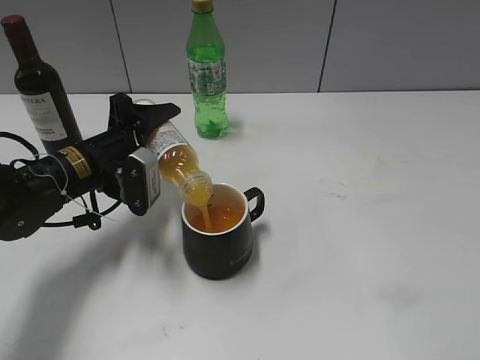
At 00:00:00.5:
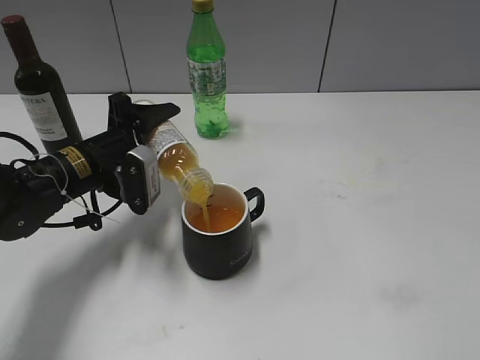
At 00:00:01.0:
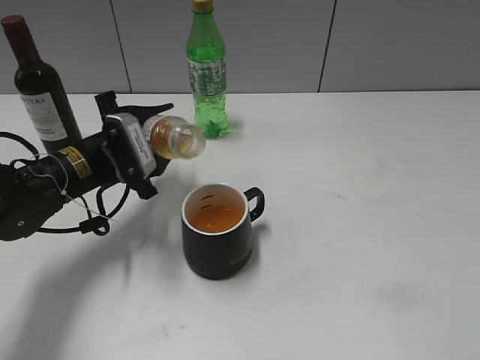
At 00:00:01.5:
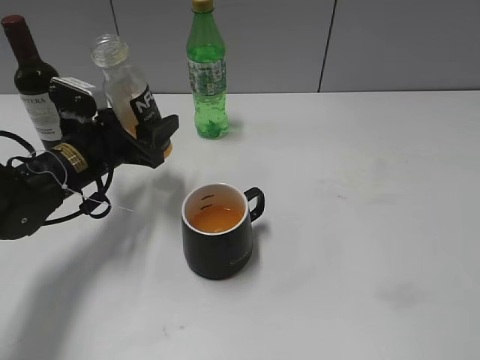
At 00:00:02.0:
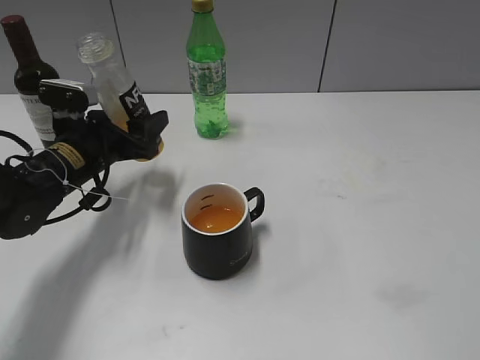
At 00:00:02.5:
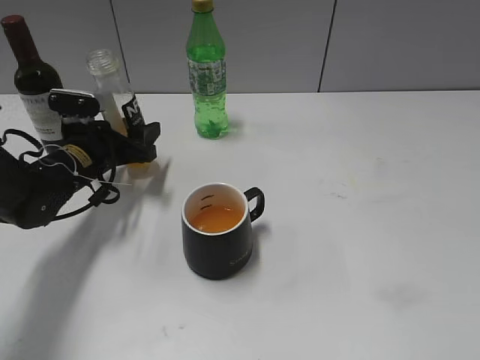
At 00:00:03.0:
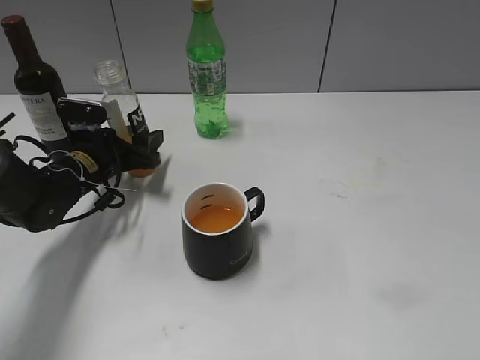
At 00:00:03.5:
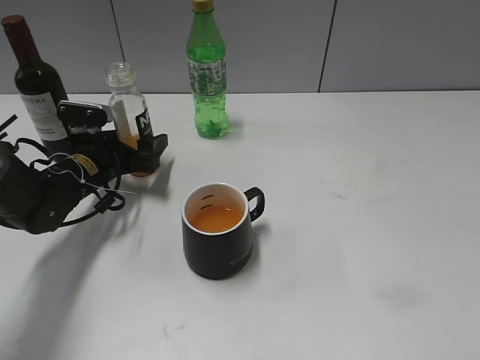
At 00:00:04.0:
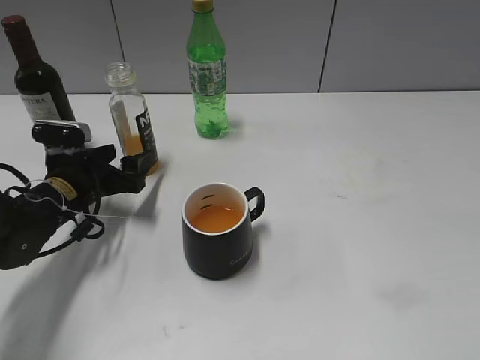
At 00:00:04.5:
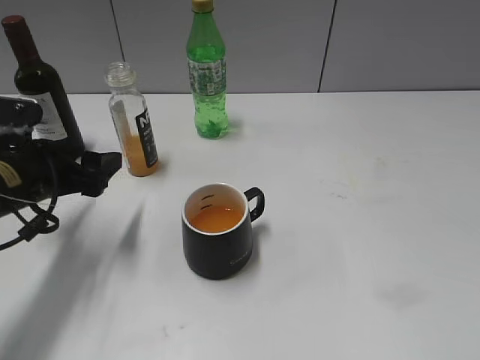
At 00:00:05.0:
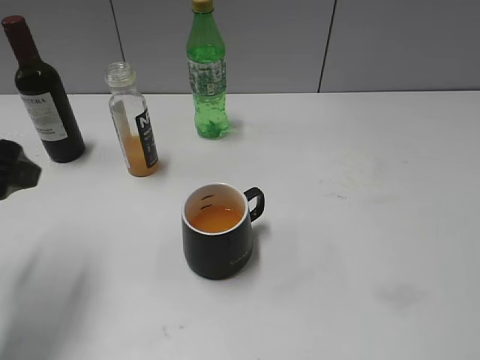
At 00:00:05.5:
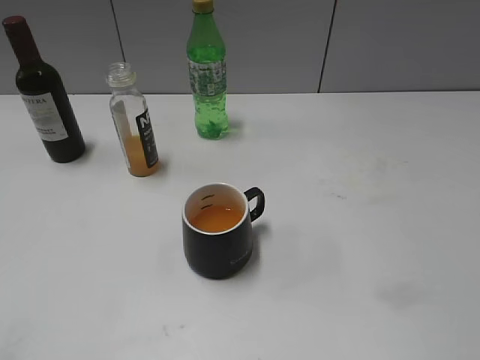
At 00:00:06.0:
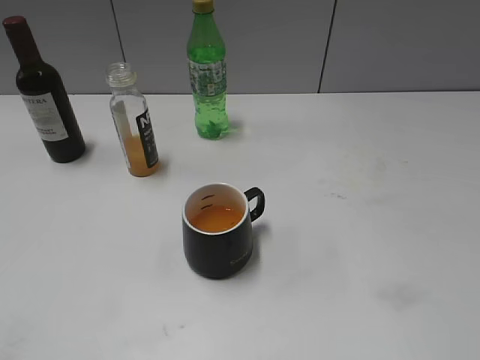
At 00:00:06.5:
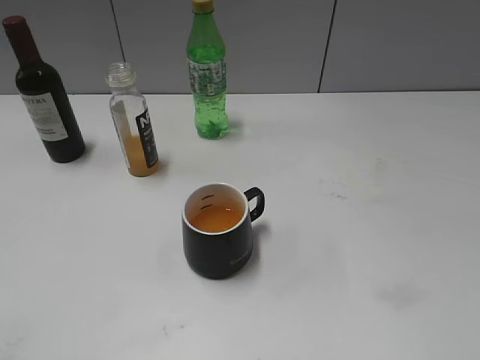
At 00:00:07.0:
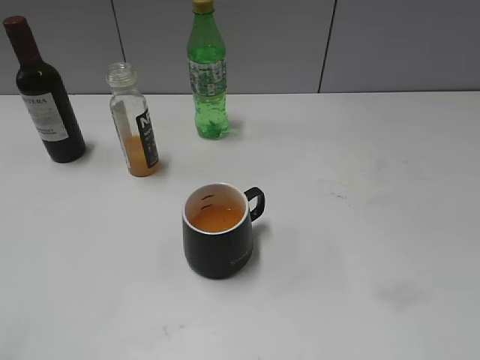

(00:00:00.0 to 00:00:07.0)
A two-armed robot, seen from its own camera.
Step, 00:00:01.0 - 00:00:03.0: Place the orange juice bottle on the table with left gripper.
00:00:02.0 - 00:00:03.5: The left gripper heads downward, covering some 5 cm, and opens.
00:00:03.5 - 00:00:05.0: The left gripper goes about 25 cm upward and backward.
00:00:05.0 - 00:00:07.0: The left gripper shifts approximately 20 cm backward.

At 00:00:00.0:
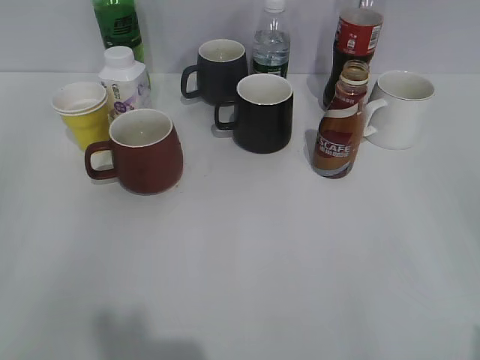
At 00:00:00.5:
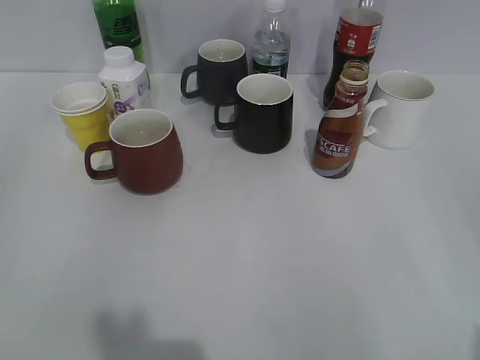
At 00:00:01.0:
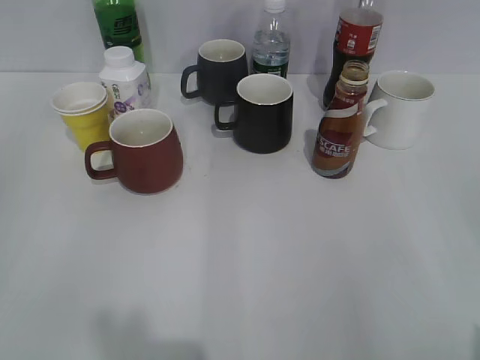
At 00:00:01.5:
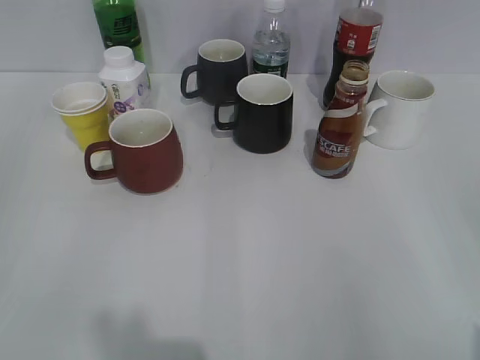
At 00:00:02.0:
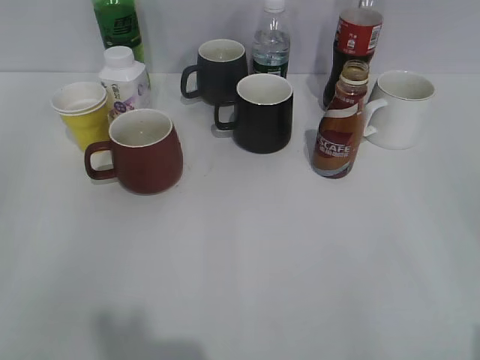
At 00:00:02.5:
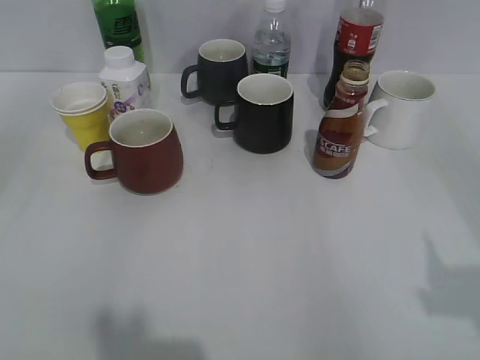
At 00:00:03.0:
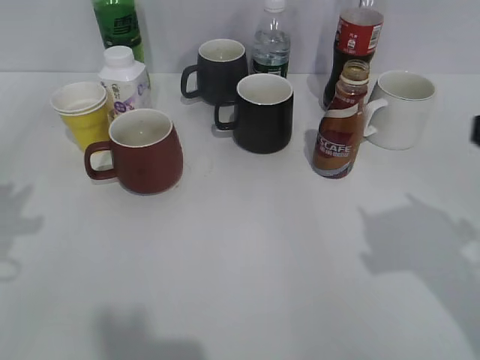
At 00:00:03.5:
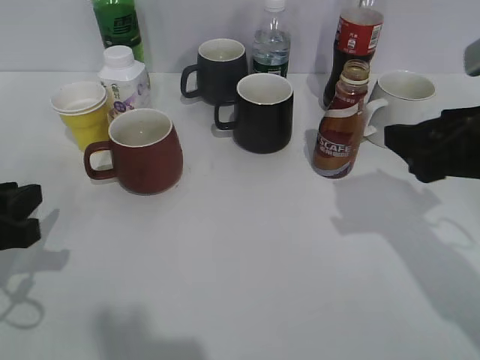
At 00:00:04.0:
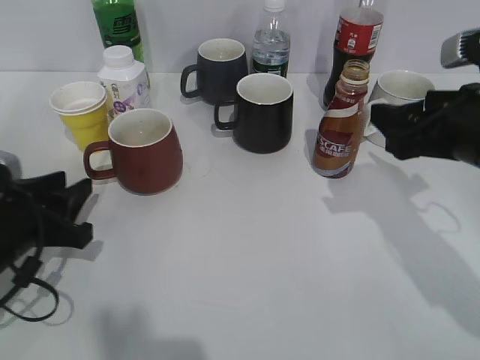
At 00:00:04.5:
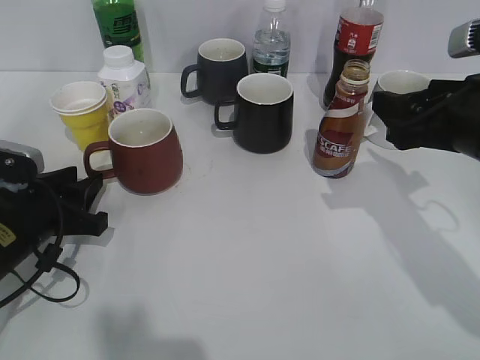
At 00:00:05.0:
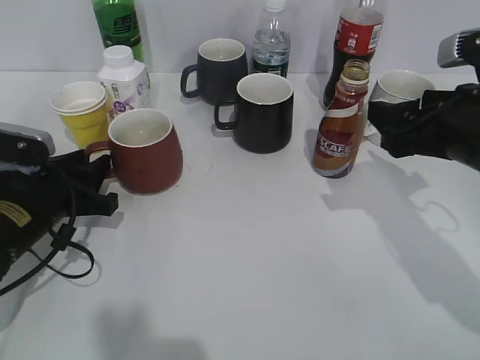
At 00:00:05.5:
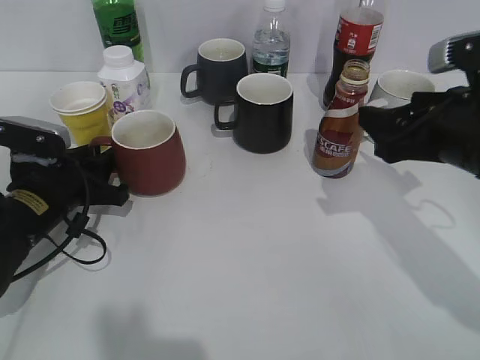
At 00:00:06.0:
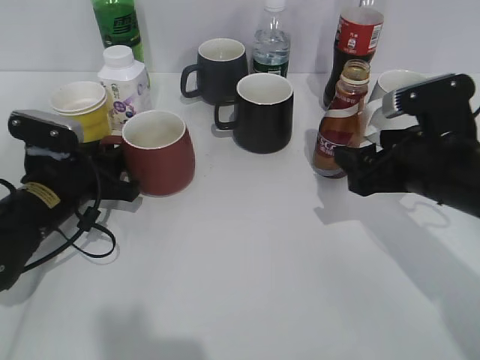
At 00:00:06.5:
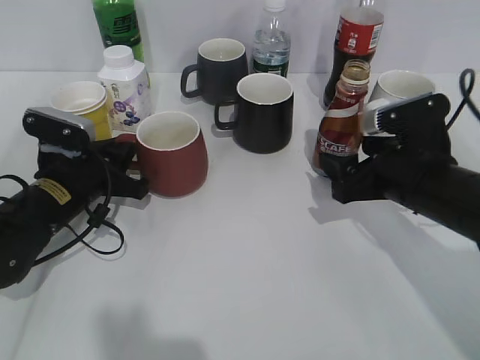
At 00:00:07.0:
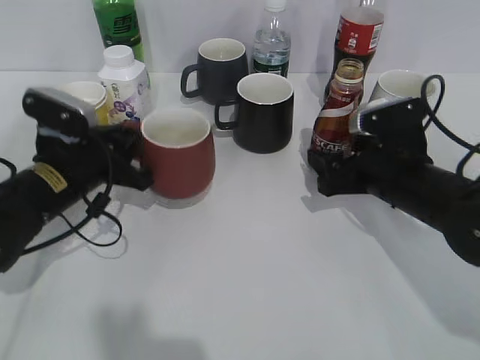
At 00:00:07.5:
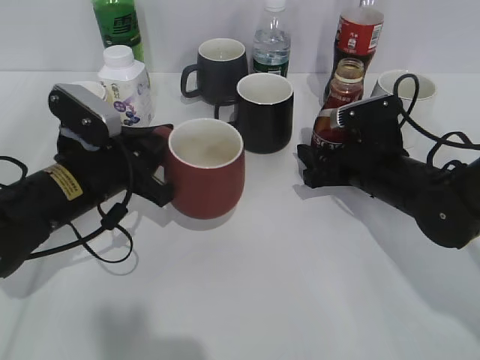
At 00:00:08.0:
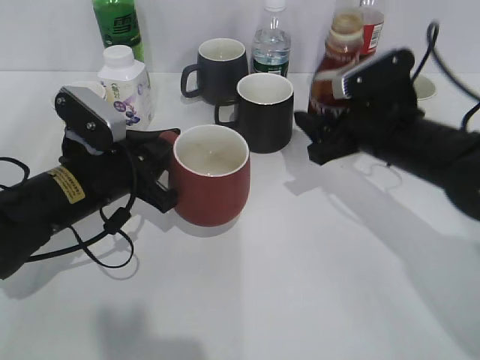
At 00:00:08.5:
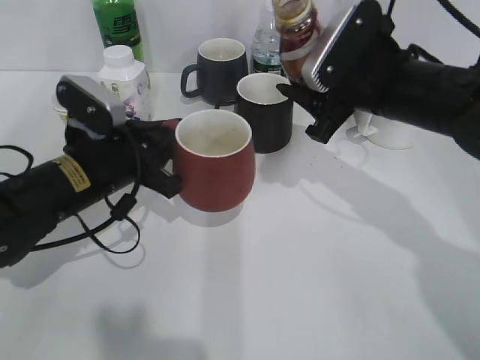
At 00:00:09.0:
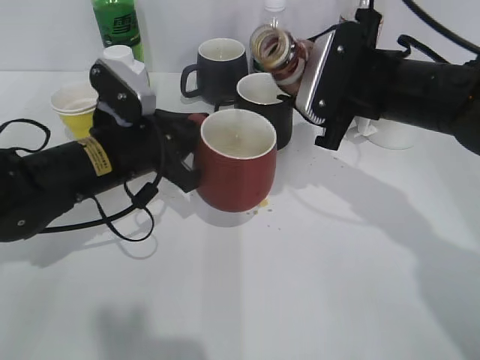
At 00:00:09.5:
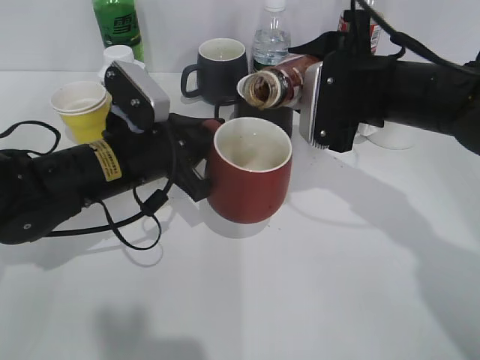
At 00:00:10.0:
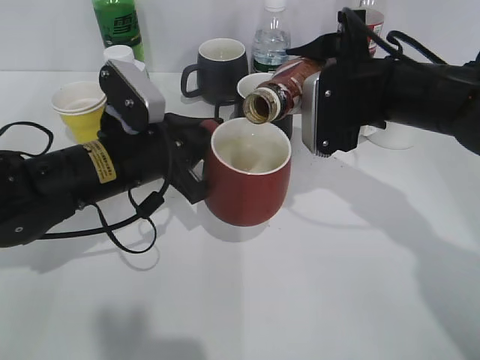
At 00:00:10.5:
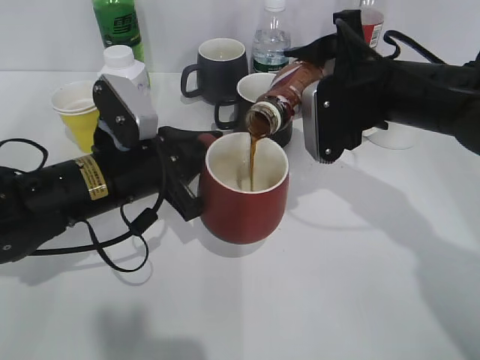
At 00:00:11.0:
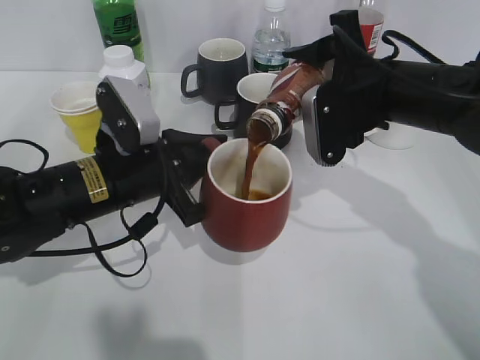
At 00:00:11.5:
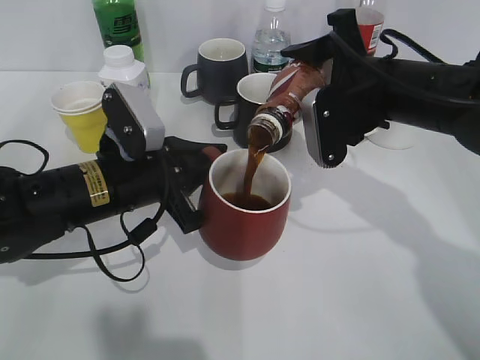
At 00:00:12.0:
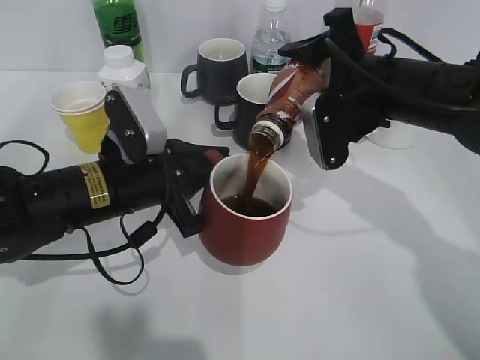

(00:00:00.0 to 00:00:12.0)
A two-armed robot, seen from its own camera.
Step, 00:00:02.5 - 00:00:06.0: Grasp the red cup with left gripper.
Step, 00:00:06.5 - 00:00:07.5: Grasp the bottle with coffee with right gripper.
00:00:02.0 - 00:00:04.0: The left gripper moves forward and downward, roughly 25 cm, while the right gripper is displaced forward by some 25 cm.
00:00:04.0 - 00:00:06.0: The right gripper heads downward, covering about 5 cm. The left gripper travels forward by about 10 cm.
00:00:06.0 - 00:00:08.0: The right gripper travels forward by some 5 cm, and closes, while the left gripper moves approximately 5 cm, and closes up.
00:00:08.0 - 00:00:10.0: The right gripper heads upward, covering roughly 5 cm.

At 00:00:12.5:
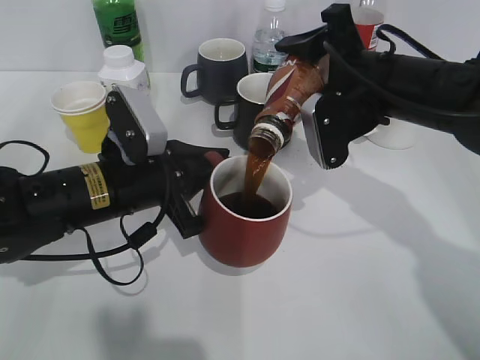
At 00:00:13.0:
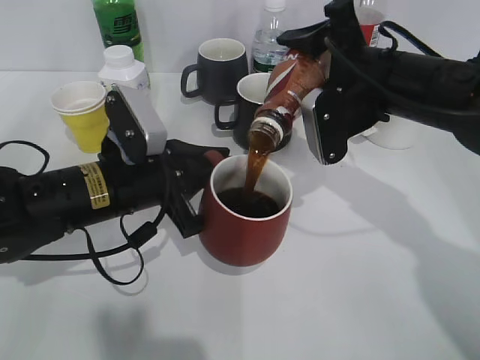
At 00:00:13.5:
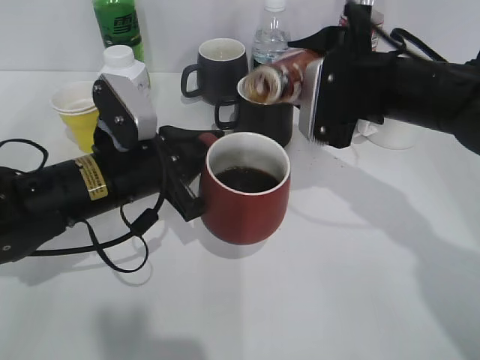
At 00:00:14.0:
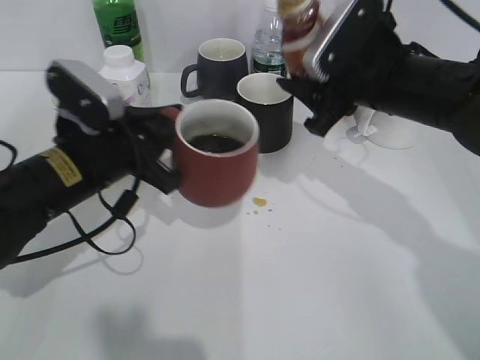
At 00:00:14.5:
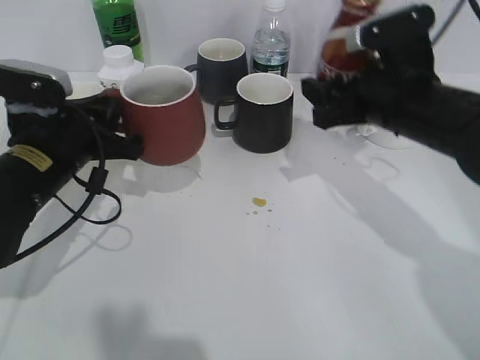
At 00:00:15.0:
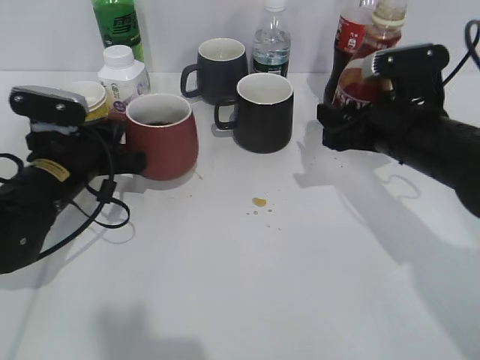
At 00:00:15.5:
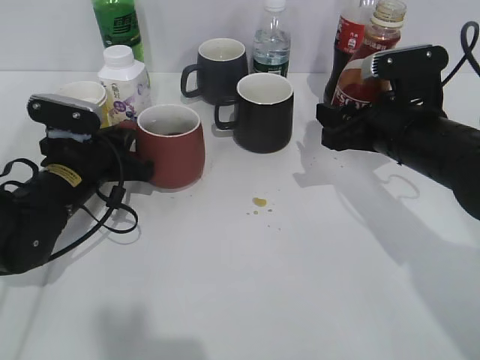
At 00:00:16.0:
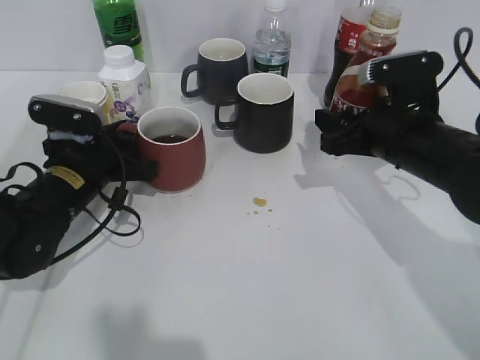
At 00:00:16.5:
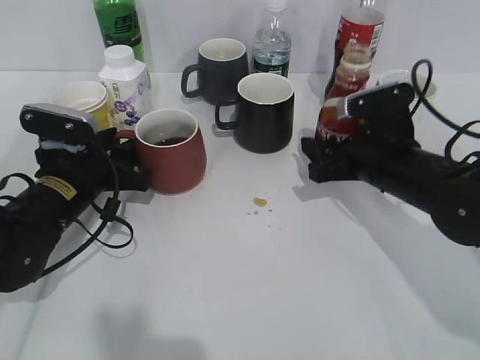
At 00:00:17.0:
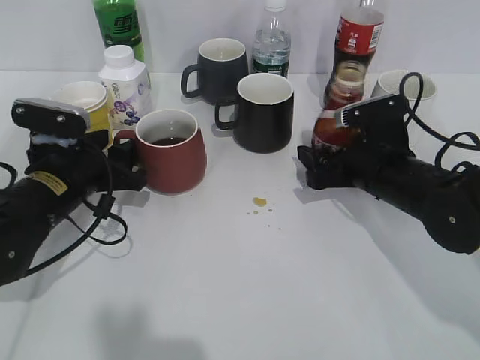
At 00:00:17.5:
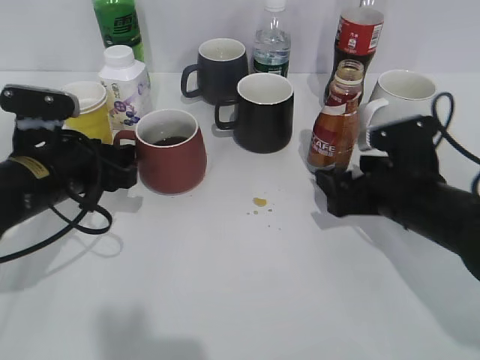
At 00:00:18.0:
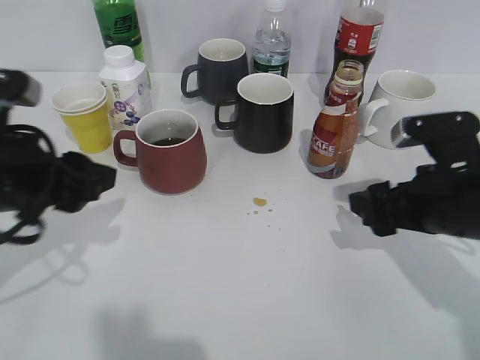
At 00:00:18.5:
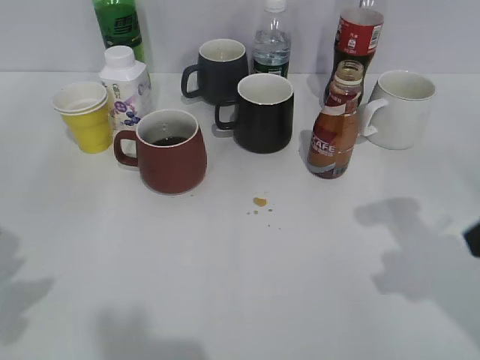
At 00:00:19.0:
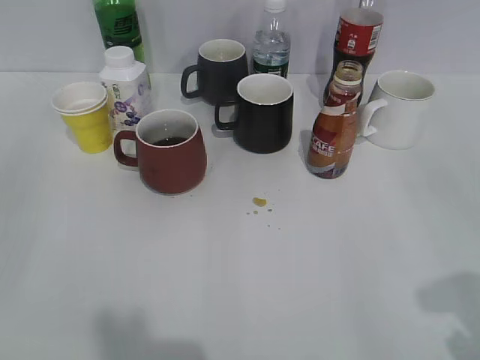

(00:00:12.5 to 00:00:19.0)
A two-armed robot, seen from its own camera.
Step, 00:00:14.0 - 00:00:17.5: Place the red cup on the table with left gripper.
00:00:12.5 - 00:00:14.5: The left gripper heads to the left, covering approximately 5 cm.
00:00:14.5 - 00:00:17.0: The right gripper shifts roughly 10 cm downward, and opens its fingers; the left gripper opens.
00:00:17.0 - 00:00:19.0: The right gripper moves backward, upward and to the right, approximately 30 cm, and closes. Meanwhile the left gripper is displaced backward, upward and to the left by roughly 35 cm.
